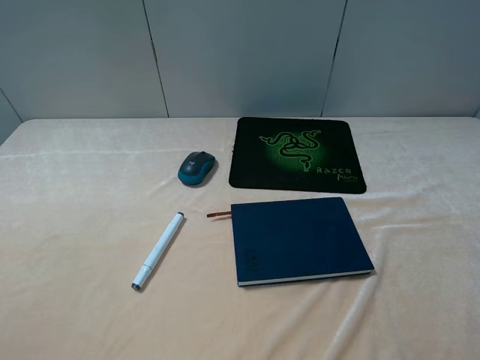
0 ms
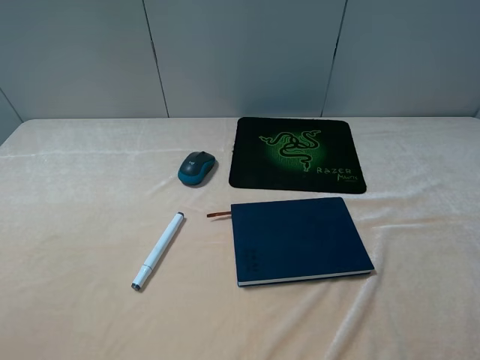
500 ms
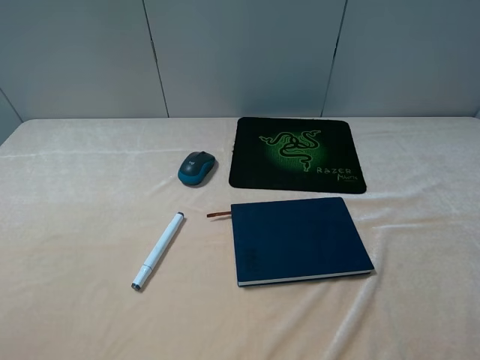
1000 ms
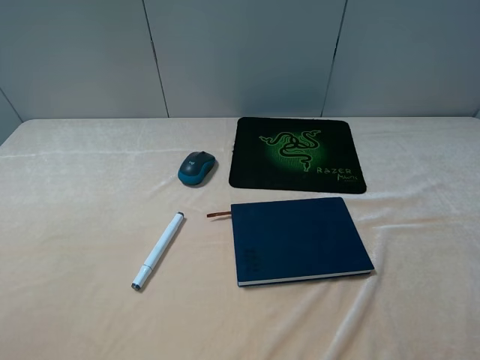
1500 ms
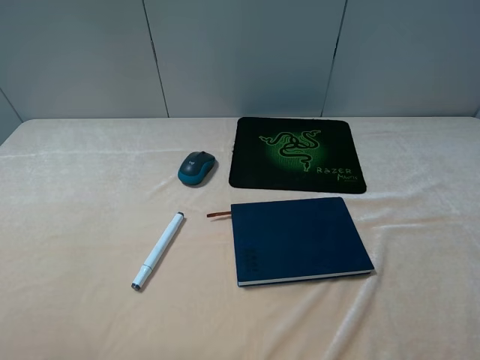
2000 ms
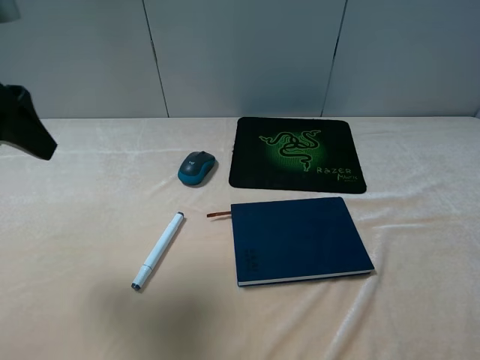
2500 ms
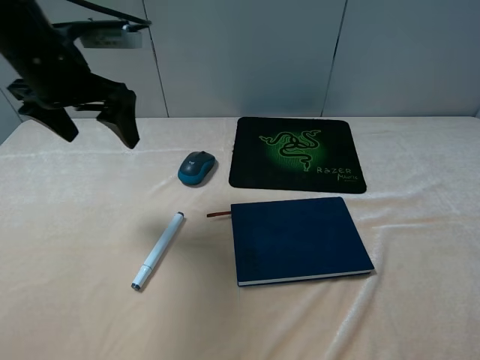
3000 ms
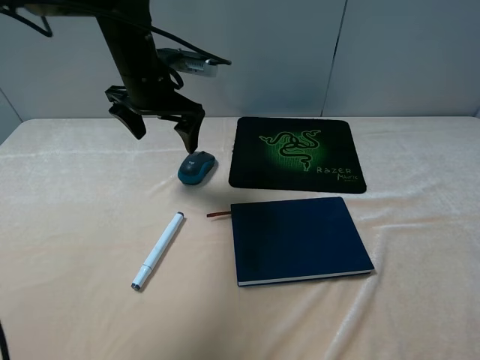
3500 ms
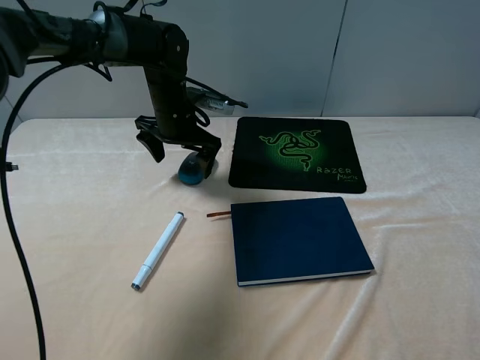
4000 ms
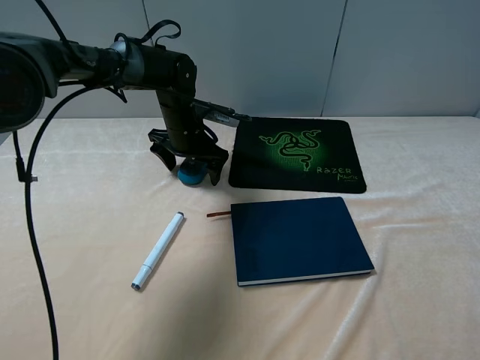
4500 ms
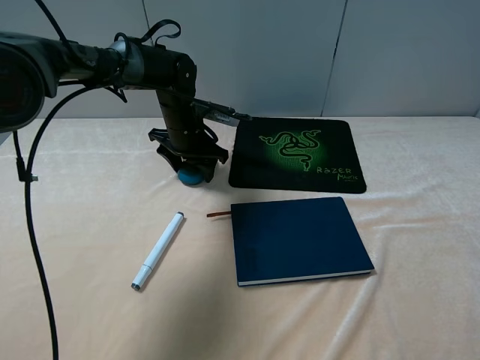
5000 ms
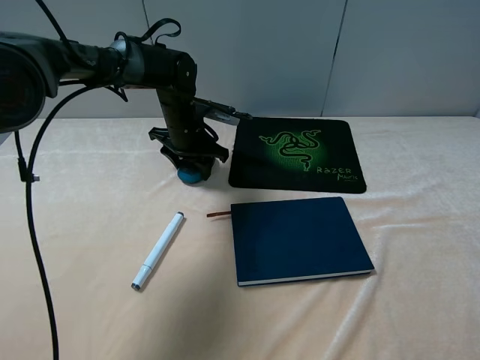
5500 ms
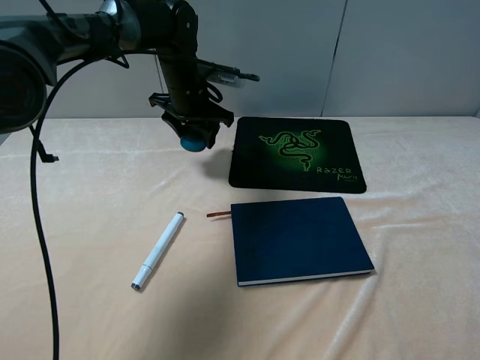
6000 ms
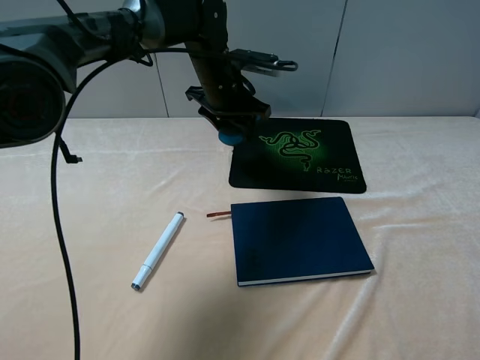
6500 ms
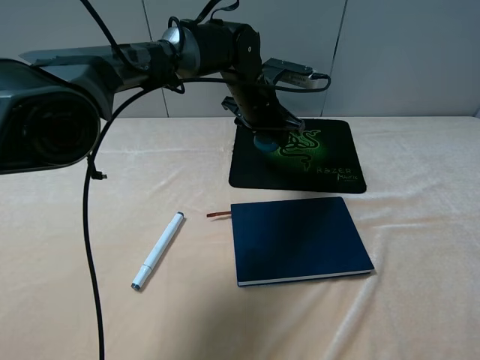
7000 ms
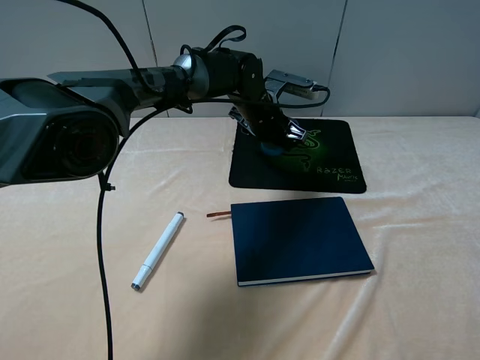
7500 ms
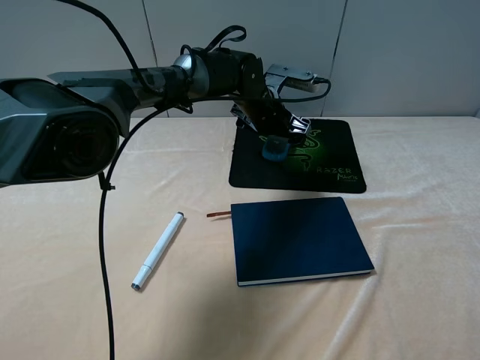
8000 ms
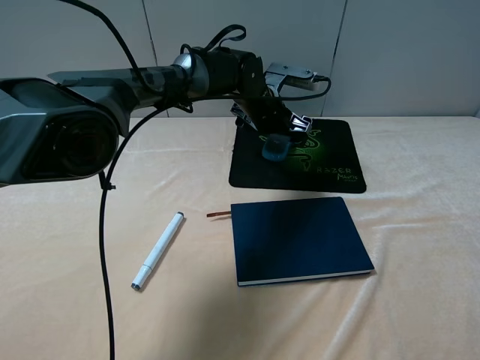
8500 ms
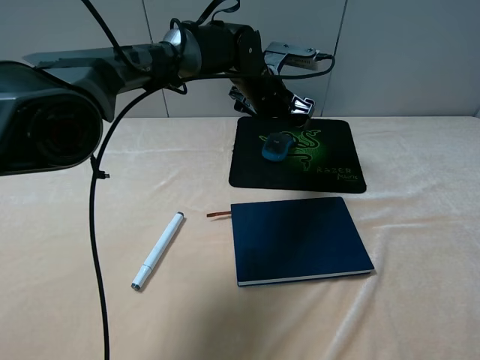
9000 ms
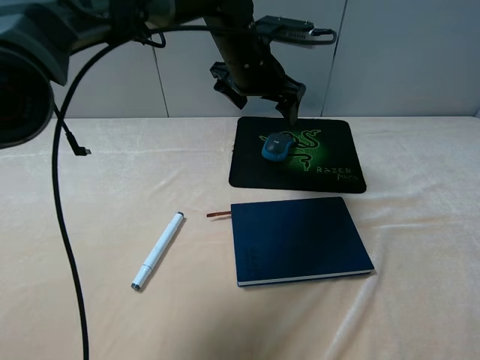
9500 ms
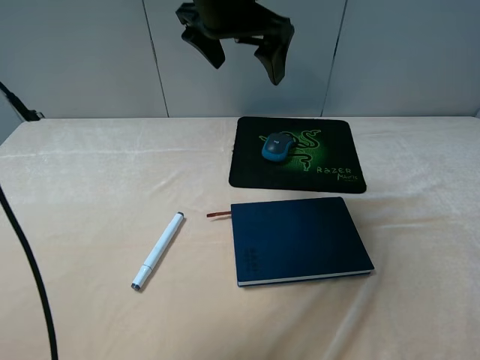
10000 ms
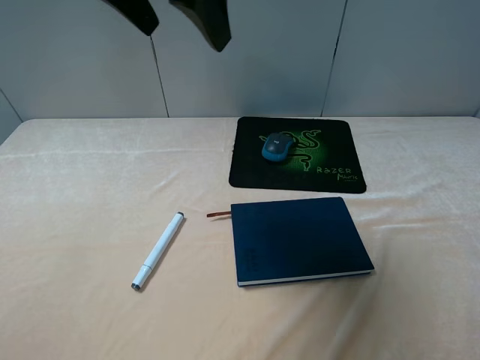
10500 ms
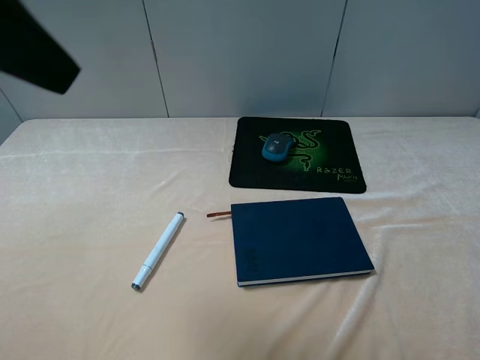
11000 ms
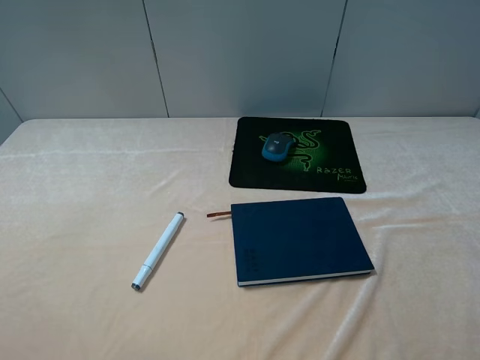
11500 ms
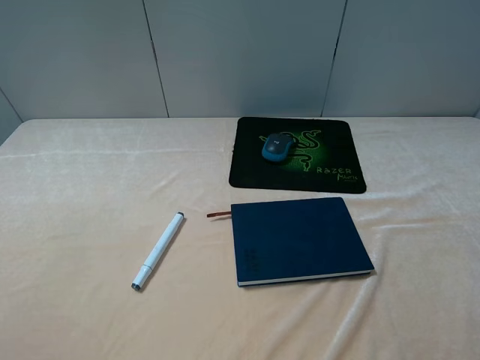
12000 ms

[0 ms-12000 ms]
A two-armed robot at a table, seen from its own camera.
Step, 0 ms to 5000 ms: Grasp the mouse with the left gripper.
Step, 5500 ms to 8500 ms: Place the mouse on the mouse pad with the left gripper.
2000 ms to 4000 ms: The left gripper shifts roughly 40 cm forward, downward and to the right.
4000 ms to 6000 ms: The left gripper moves roughly 5 cm, and closes up.
6000 ms to 8000 ms: The left gripper moves to the right, some 10 cm, and opens its fingers.
8000 ms to 10000 ms: The left gripper shifts some 20 cm upward.
10000 ms to 12000 ms: The left gripper travels backward and to the left by about 40 cm.

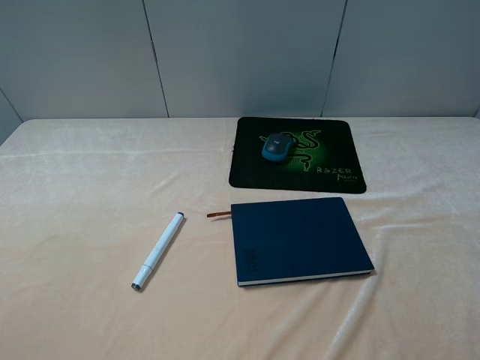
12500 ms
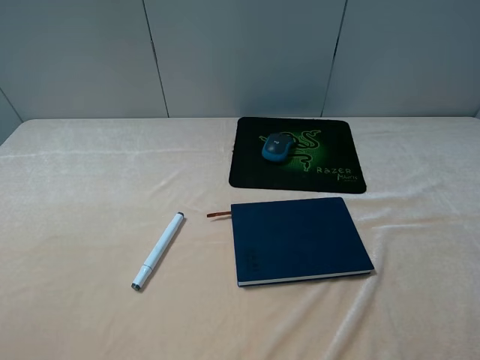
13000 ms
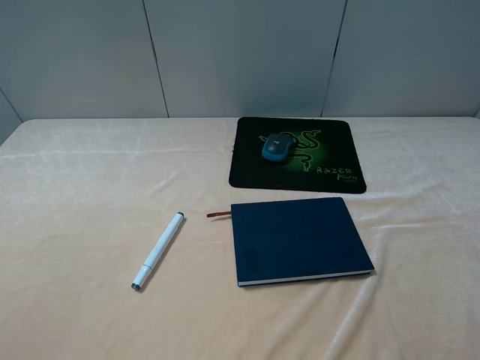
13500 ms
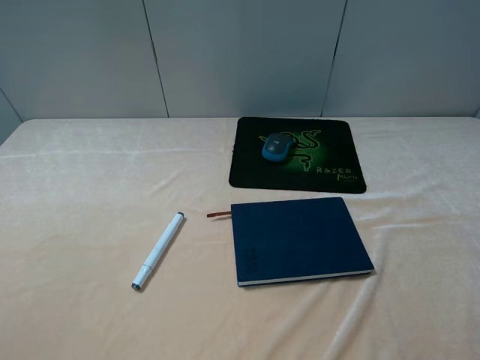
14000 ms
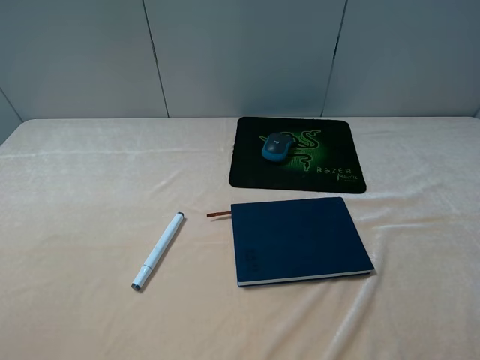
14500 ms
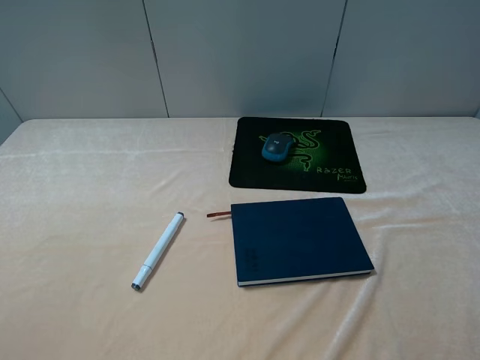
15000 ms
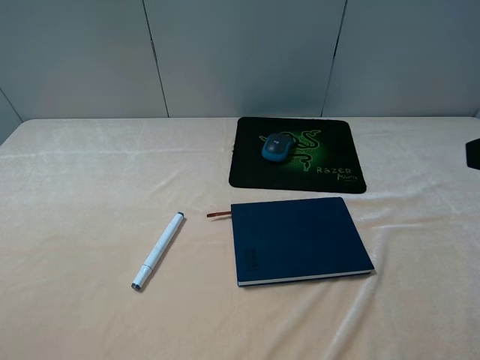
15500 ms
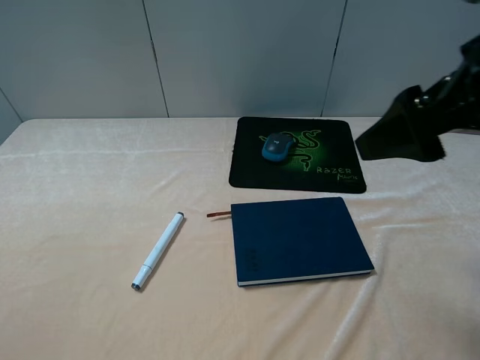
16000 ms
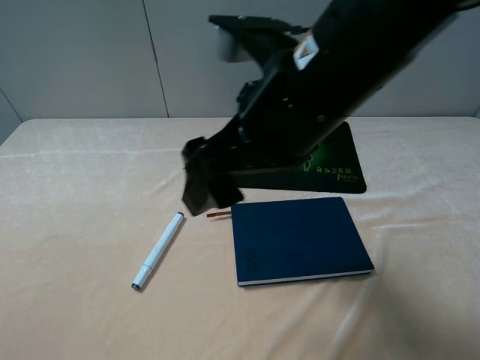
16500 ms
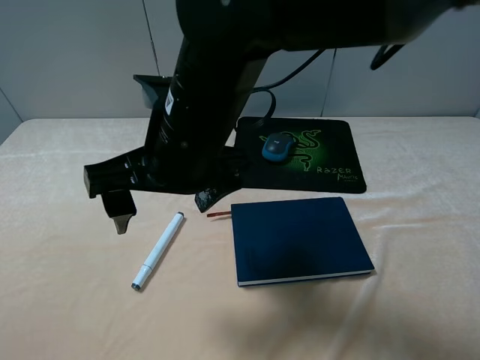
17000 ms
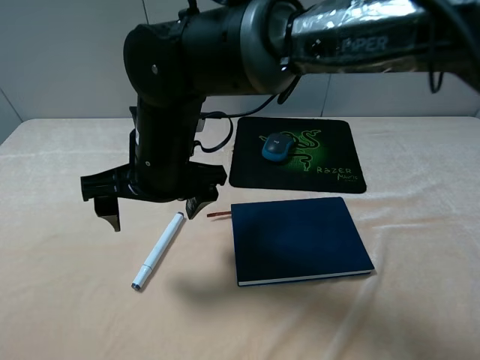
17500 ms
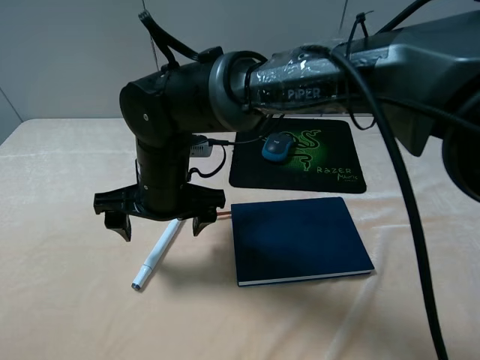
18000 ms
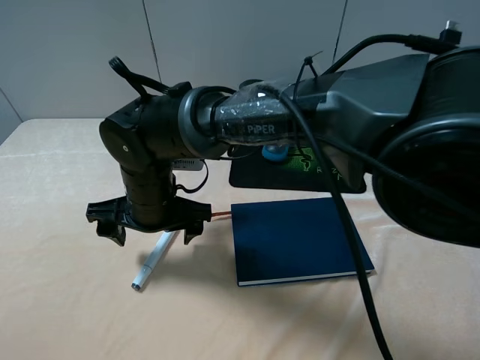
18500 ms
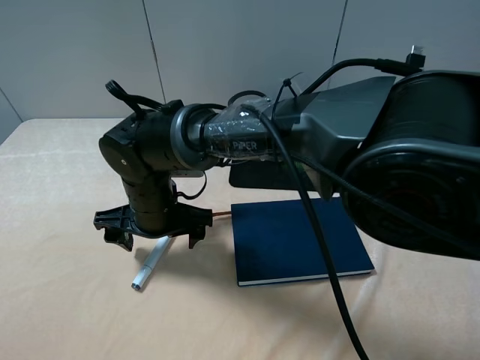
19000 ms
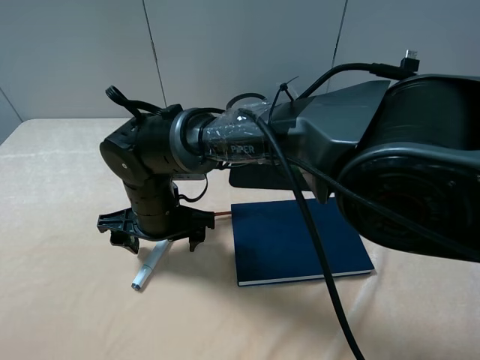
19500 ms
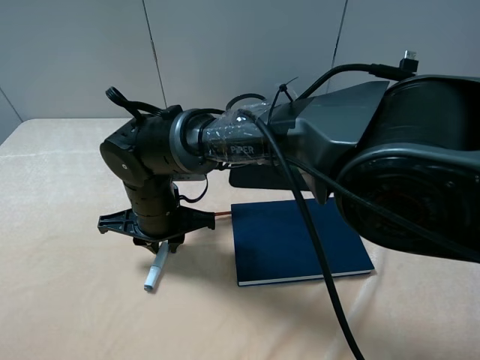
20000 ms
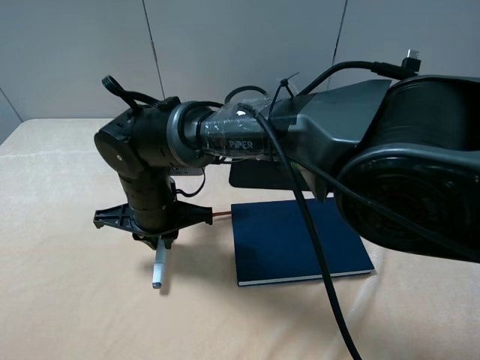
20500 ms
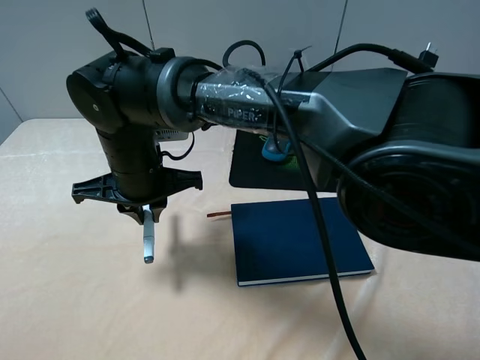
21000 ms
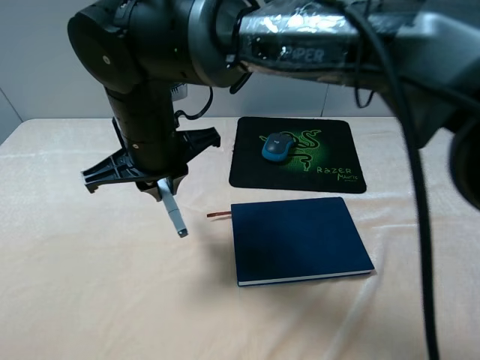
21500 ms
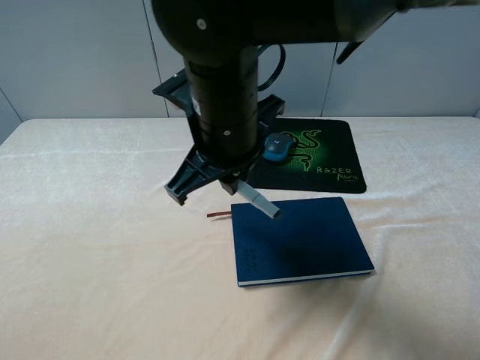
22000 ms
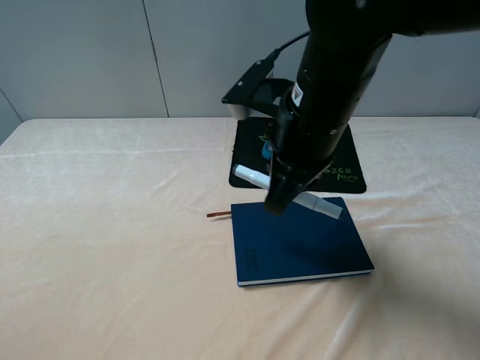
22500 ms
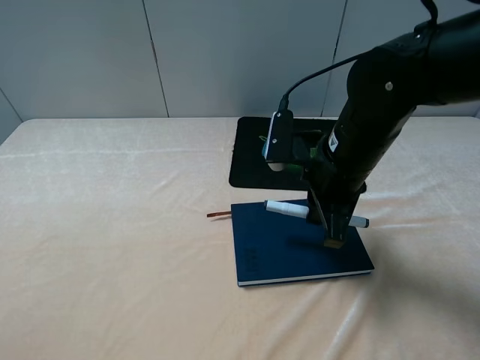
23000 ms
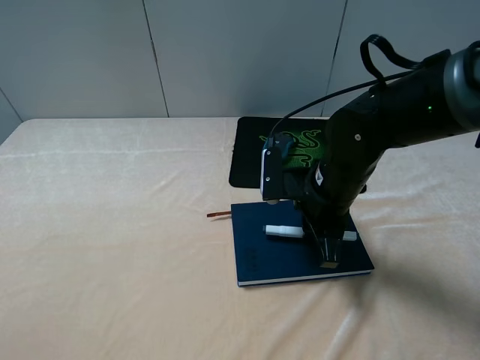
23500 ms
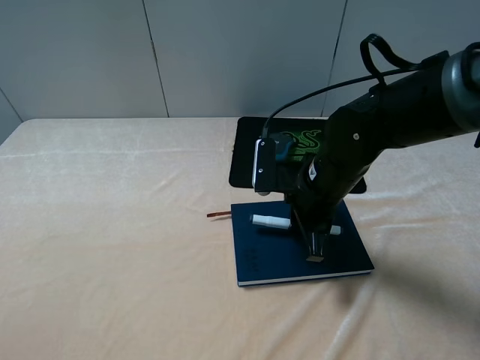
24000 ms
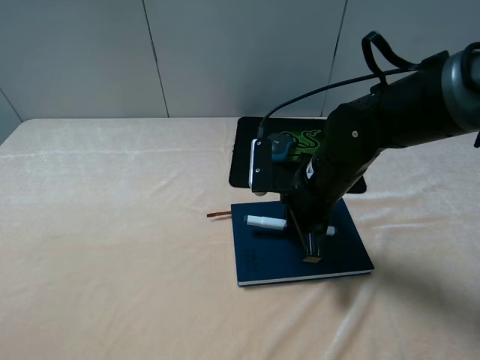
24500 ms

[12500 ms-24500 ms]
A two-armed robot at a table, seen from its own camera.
Step, 12500 ms to 20000 ms: Grasp the marker with the right gripper.
12500 ms to 14500 ms: Neither gripper changes place.
14500 ms to 16500 ms: The right gripper heads to the left and forward, covering roughly 30 cm.
16500 ms to 18500 ms: The right gripper moves downward and to the left, about 25 cm.
18500 ms to 20500 ms: The right gripper closes its fingers.
20500 ms to 22500 ms: The right gripper heads to the right and upward, covering some 25 cm.
22500 ms to 24500 ms: The right gripper goes roughly 10 cm downward.

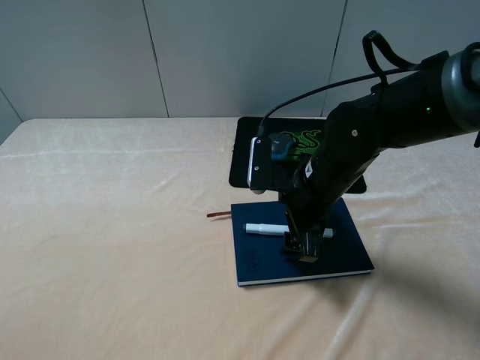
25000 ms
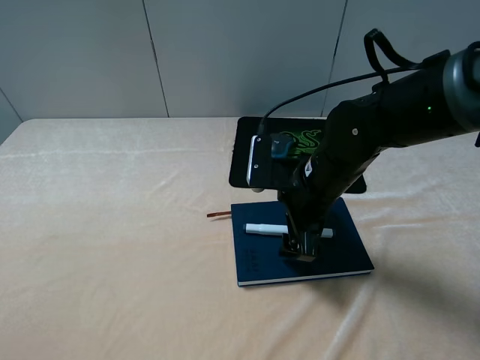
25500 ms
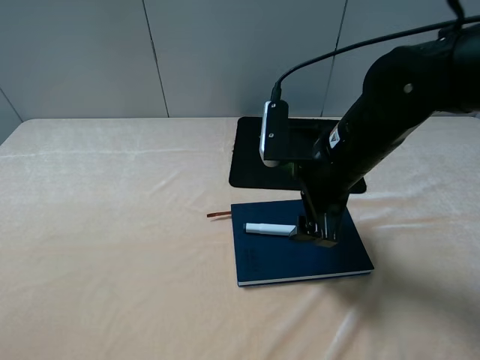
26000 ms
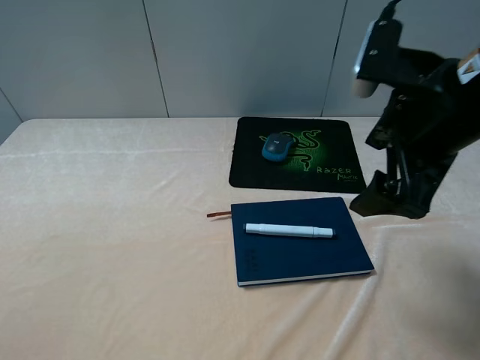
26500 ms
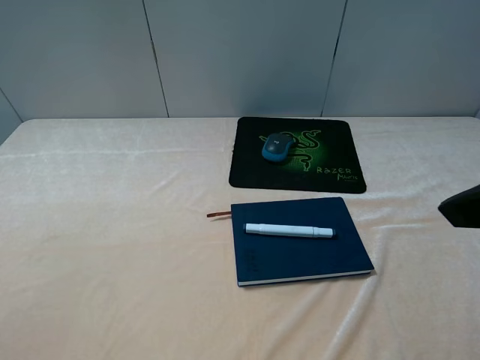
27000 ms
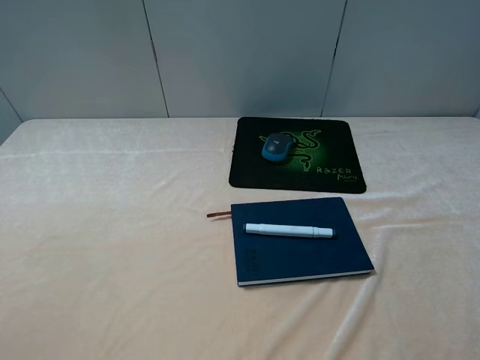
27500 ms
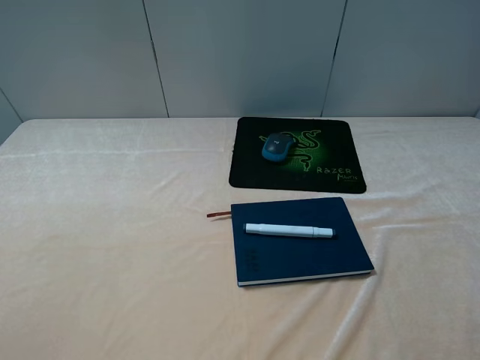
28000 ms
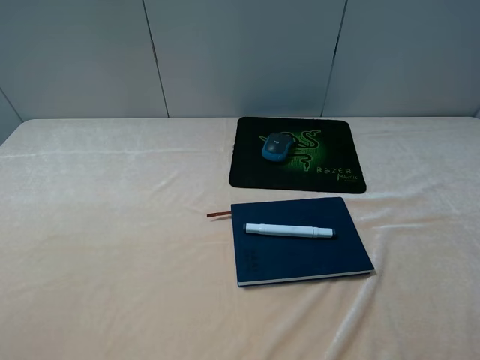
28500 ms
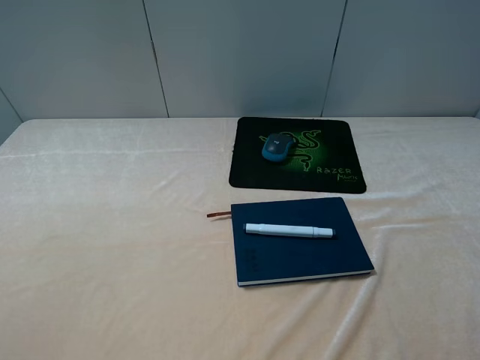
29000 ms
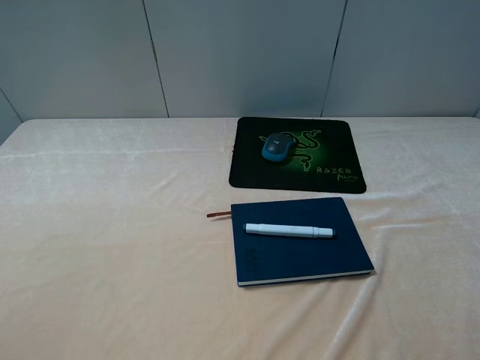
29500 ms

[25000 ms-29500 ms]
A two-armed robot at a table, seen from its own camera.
25000 ms to 27000 ms: The right gripper travels upward, backward and to the right by approximately 30 cm.
27000 ms to 29500 ms: The right gripper is displaced backward, to the right and downward by some 15 cm.
